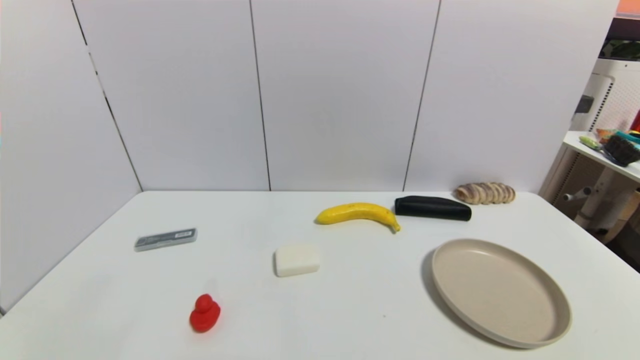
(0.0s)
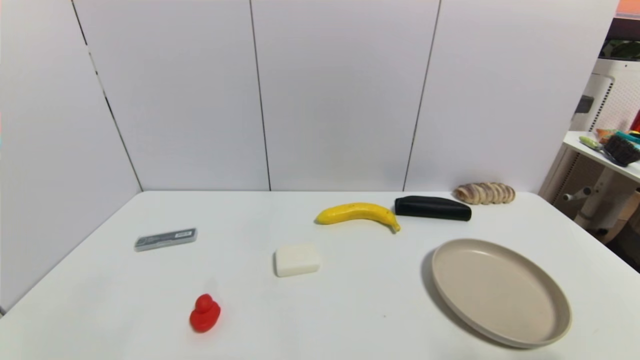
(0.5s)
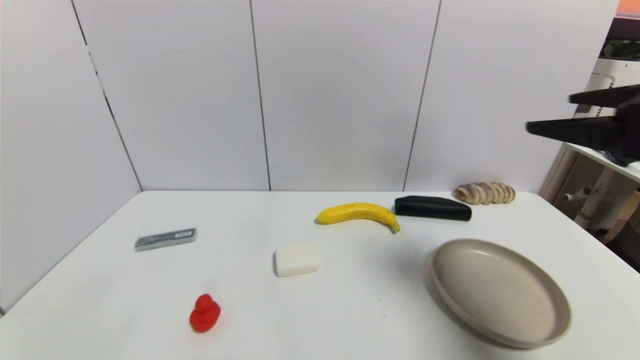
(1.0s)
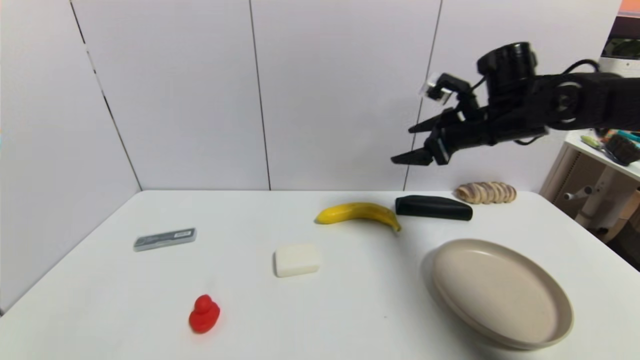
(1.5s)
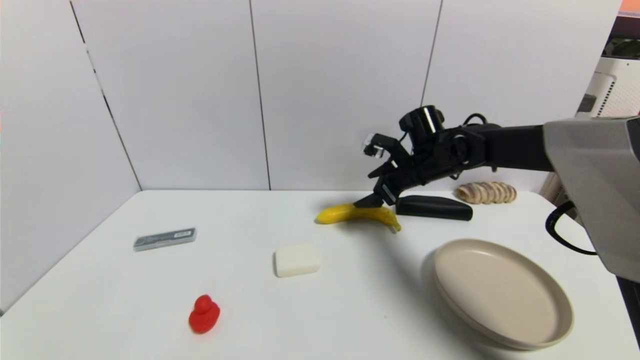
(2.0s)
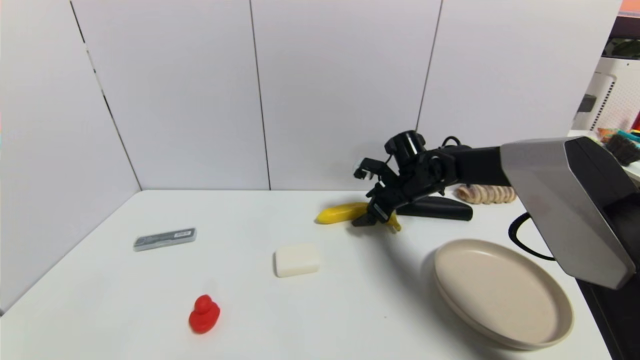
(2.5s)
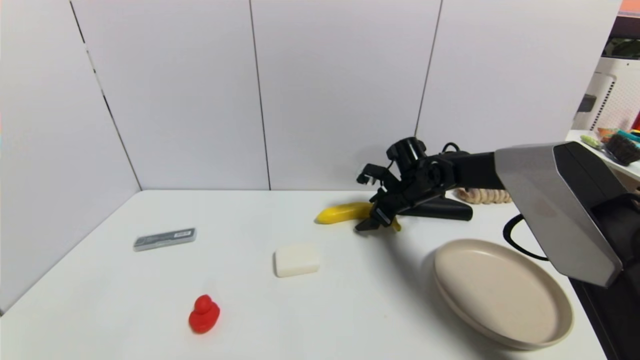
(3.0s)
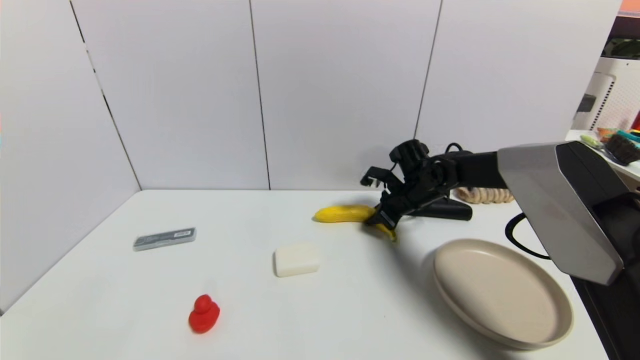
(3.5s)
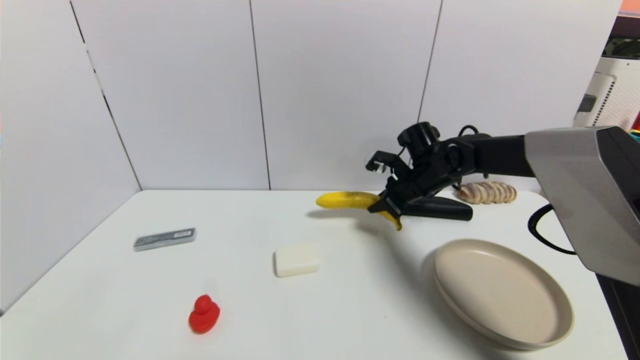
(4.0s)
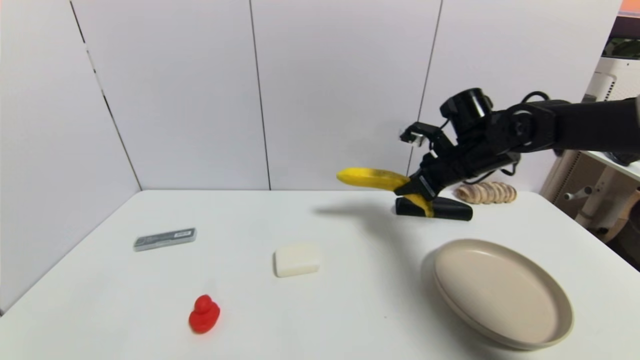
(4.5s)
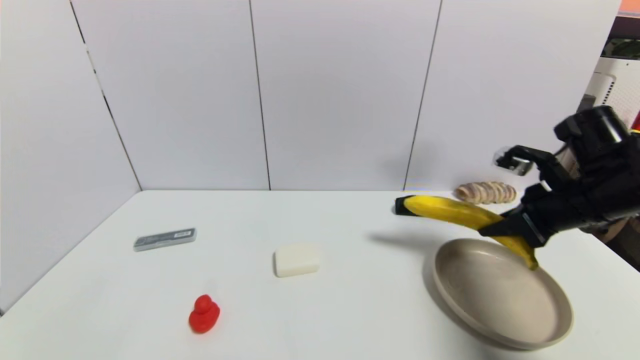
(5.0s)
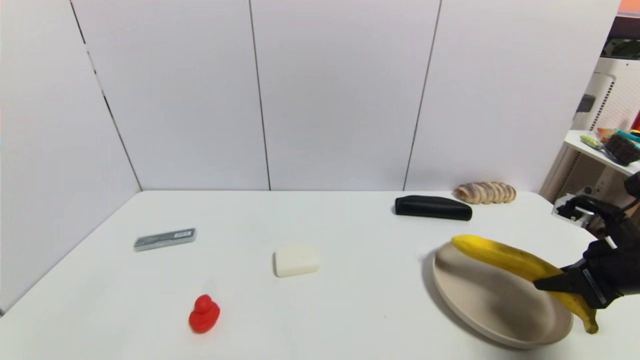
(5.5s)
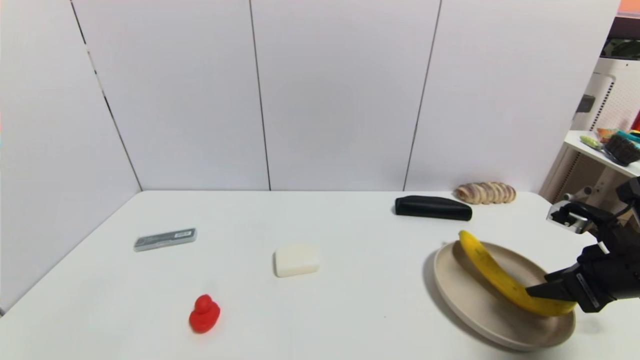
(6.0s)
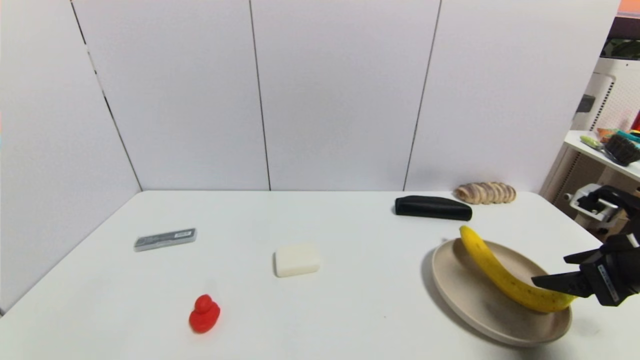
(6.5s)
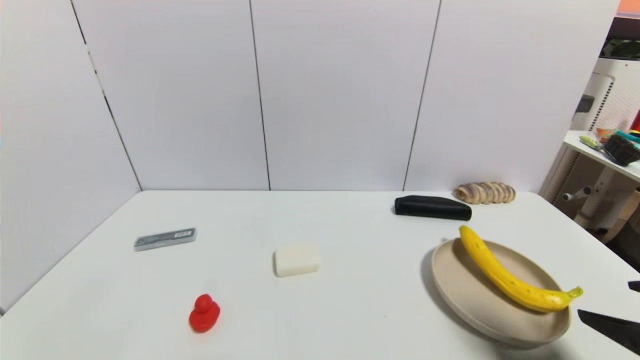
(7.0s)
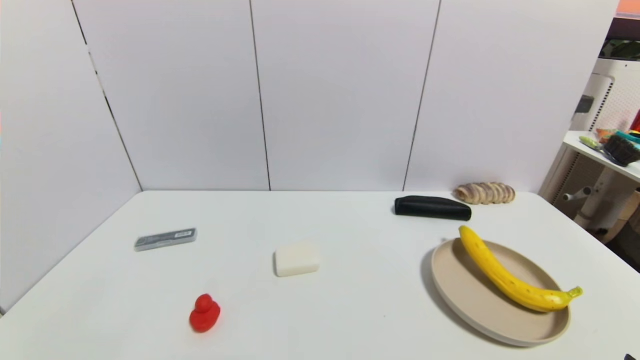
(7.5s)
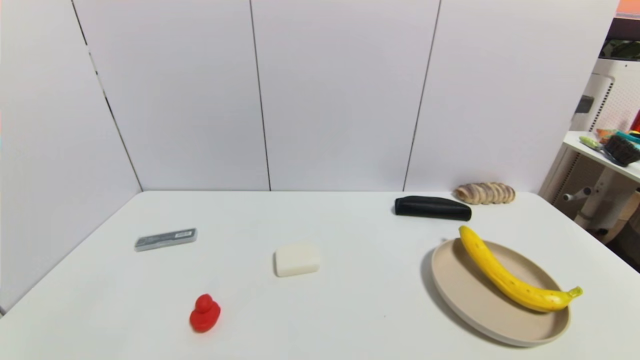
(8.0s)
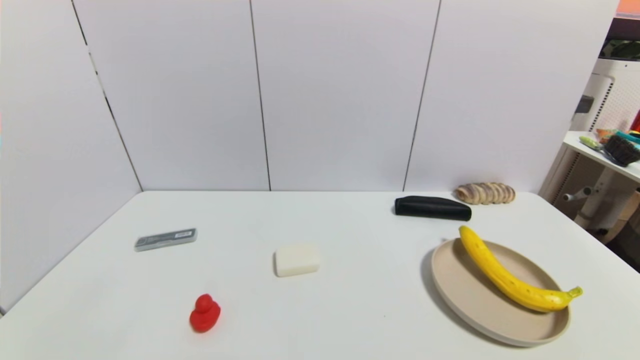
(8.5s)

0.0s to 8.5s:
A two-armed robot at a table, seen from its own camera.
Task of the whole recording: use a gripper to pick the target object and place on the brown plate.
Step, 0.0s to 3.5s: Grasp the banana with the right gripper.
Step, 4.0s to 6.5s: Place the banana on the brown plate with the right gripper.
0.0s to 2.0s: The right gripper shifts roughly 50 cm forward.
2.0s to 4.0s: The right gripper closes its fingers.
4.0s to 6.5s: The right gripper travels backward and to the right by approximately 30 cm, and opens up.
6.5s to 8.5s: The right gripper travels backward and downward by some 25 cm.

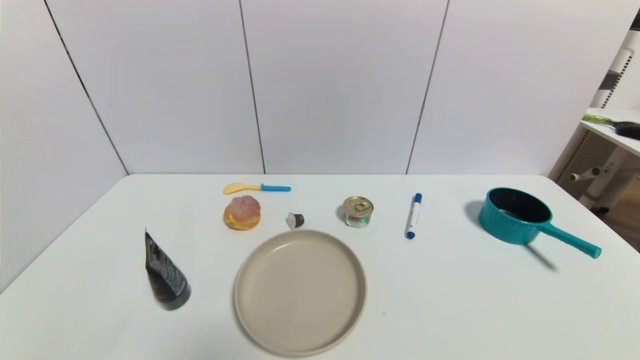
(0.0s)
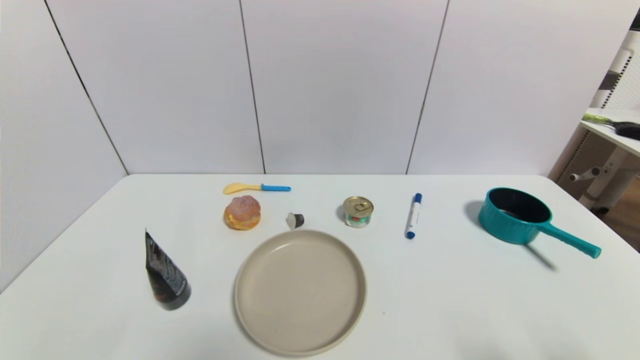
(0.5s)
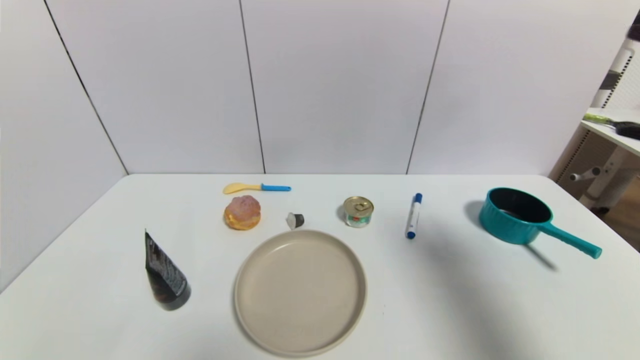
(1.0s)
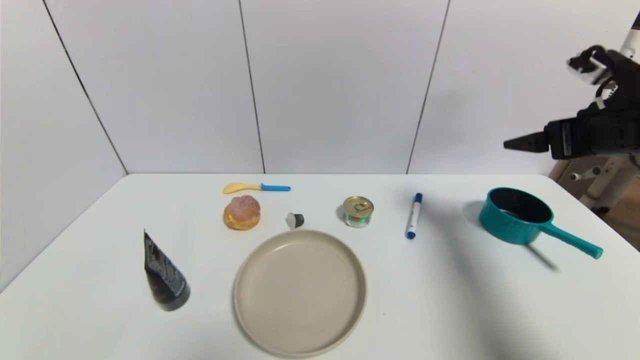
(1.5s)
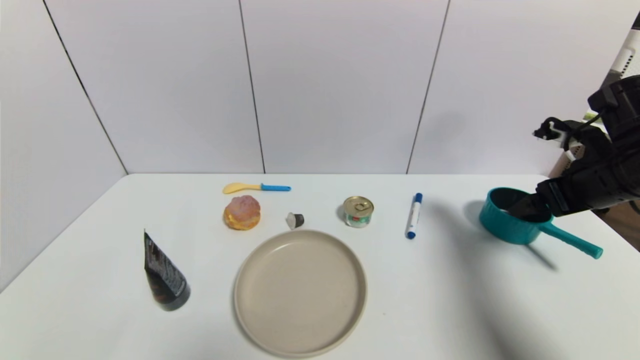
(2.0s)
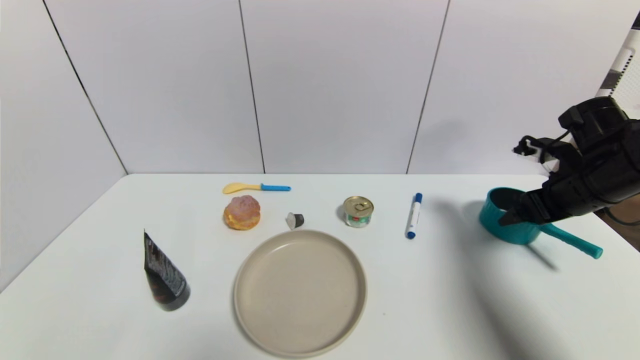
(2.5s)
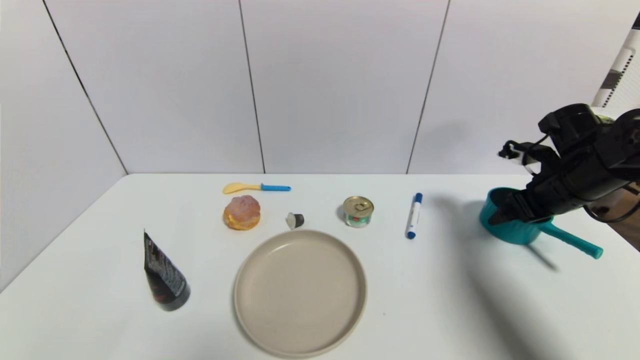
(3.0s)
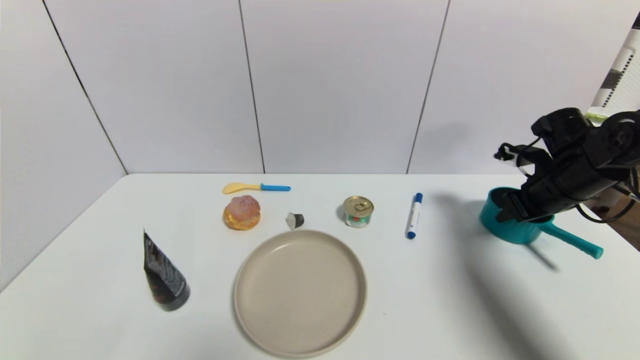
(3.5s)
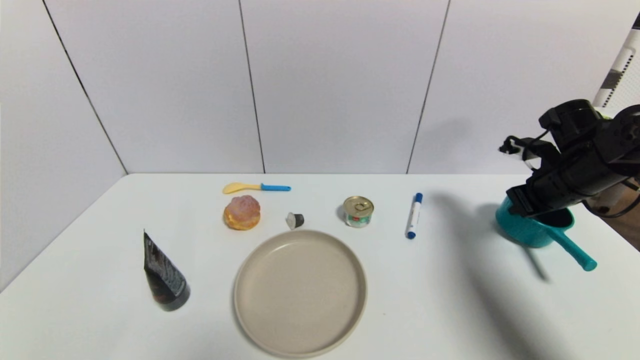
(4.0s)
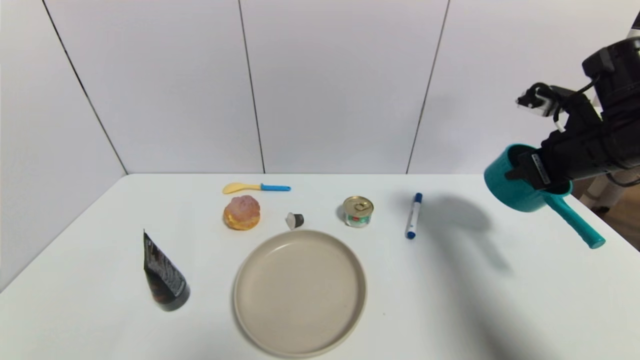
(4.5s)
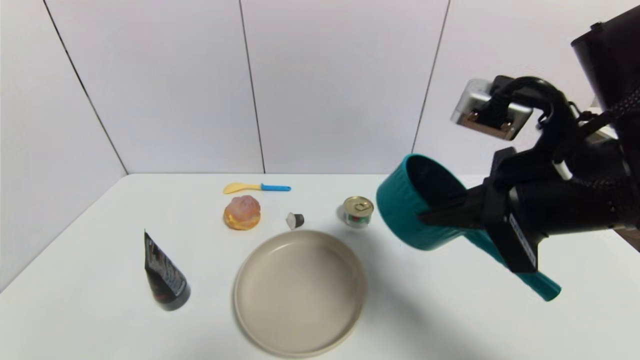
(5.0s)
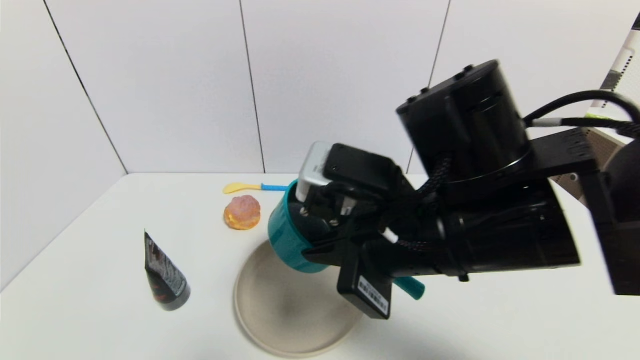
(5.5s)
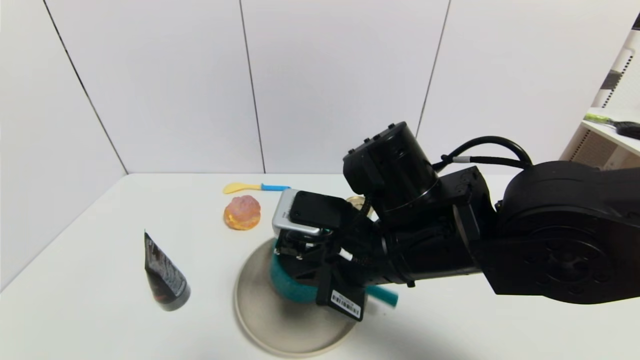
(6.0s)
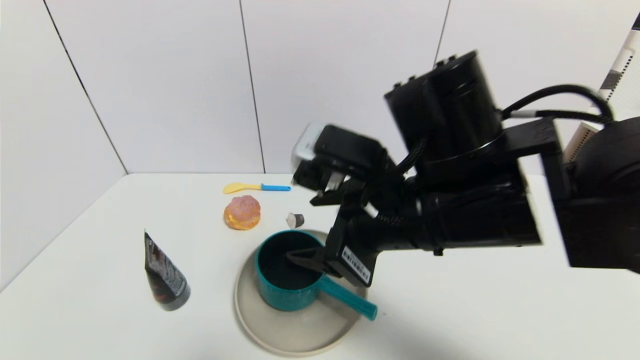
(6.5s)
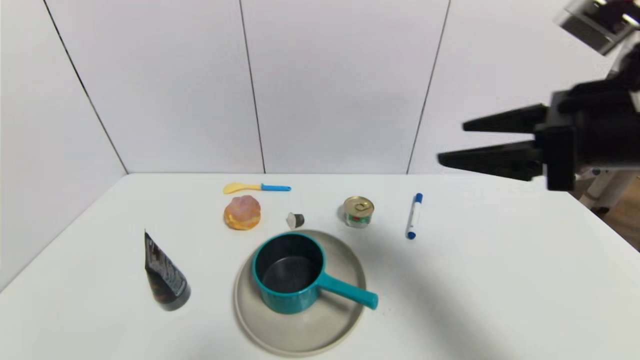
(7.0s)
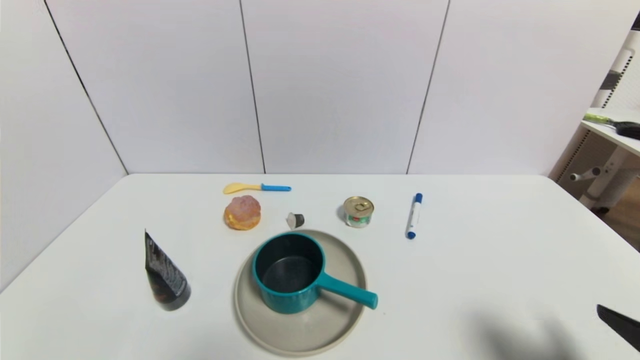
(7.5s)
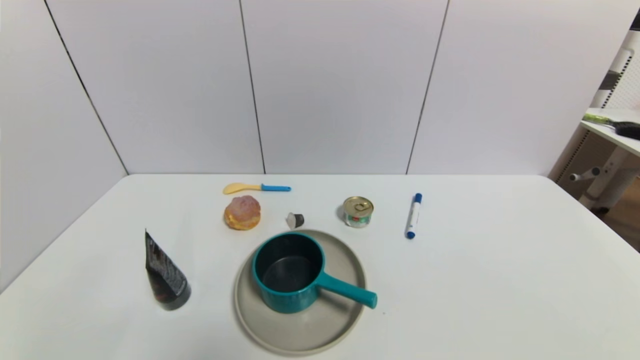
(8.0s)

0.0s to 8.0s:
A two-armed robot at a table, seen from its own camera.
Task of the whole recording: use a gripper to pick the target object and place on the brown plate.
Step, 0.0s to 3.5s: Grasp the blue pot with the right gripper.
Step, 4.0s to 6.0s: Place the blue pot on the brown plate with the right gripper.
0.0s to 2.0s: The right gripper moves forward and upward, approximately 35 cm.
2.0s to 4.0s: The right gripper heads forward, covering roughly 5 cm, and closes.
4.0s to 6.0s: The right gripper heads to the left and backward, covering about 30 cm.
6.0s to 8.0s: The right gripper moves to the right, backward and downward, roughly 40 cm, and opens its fingers.
